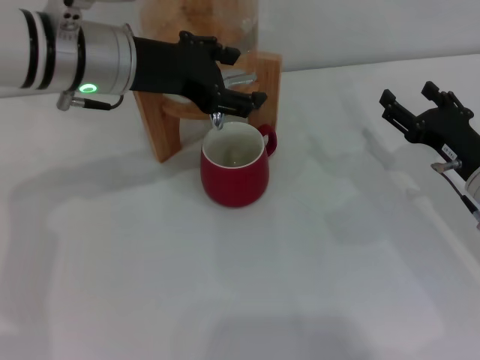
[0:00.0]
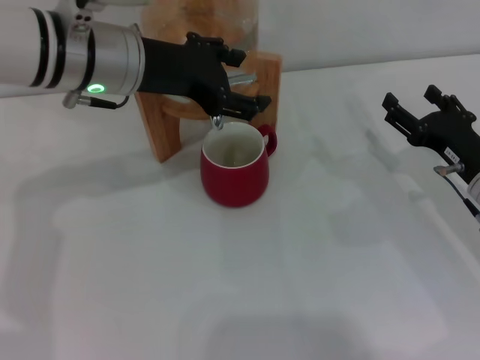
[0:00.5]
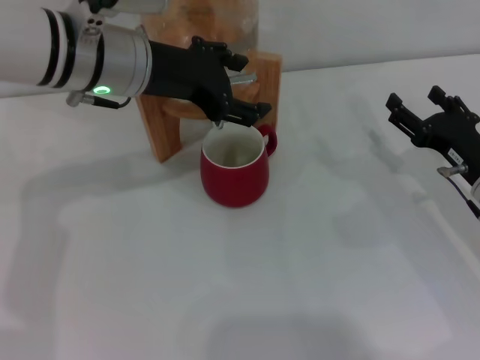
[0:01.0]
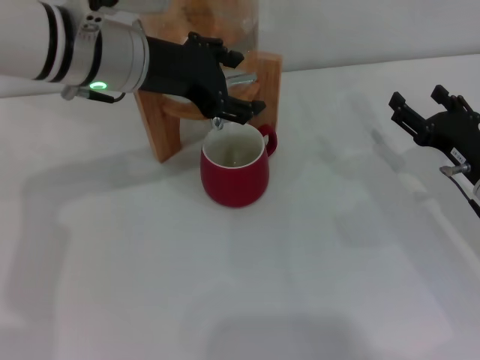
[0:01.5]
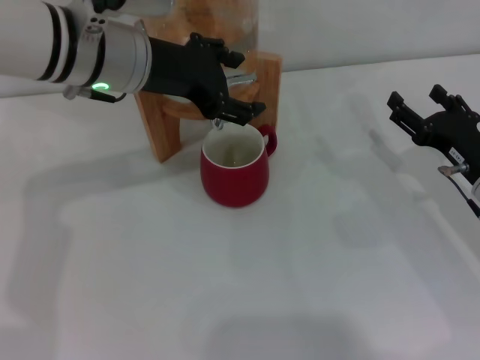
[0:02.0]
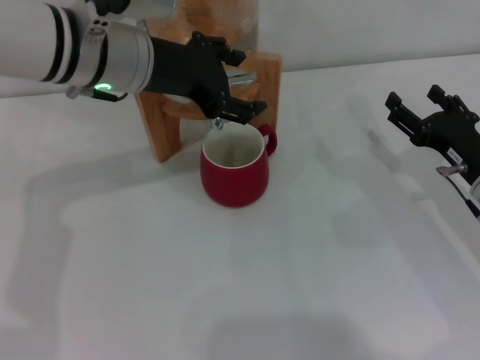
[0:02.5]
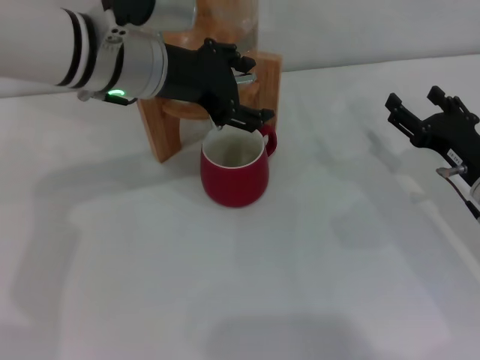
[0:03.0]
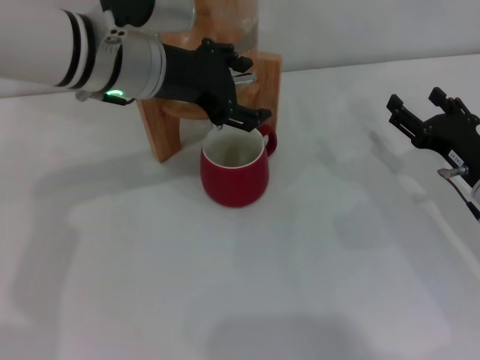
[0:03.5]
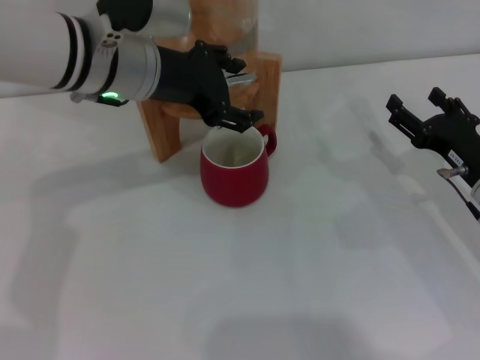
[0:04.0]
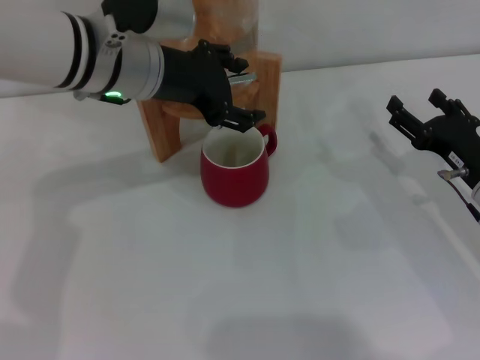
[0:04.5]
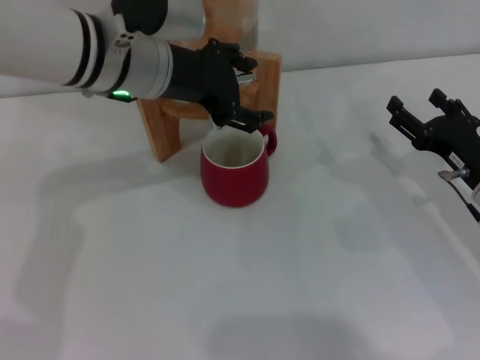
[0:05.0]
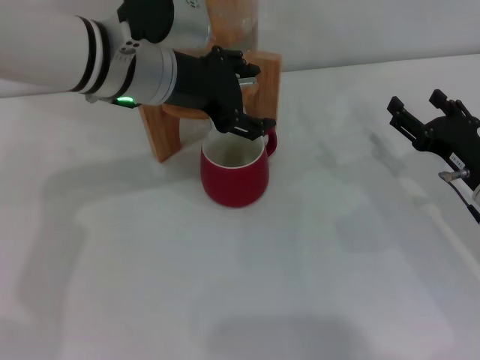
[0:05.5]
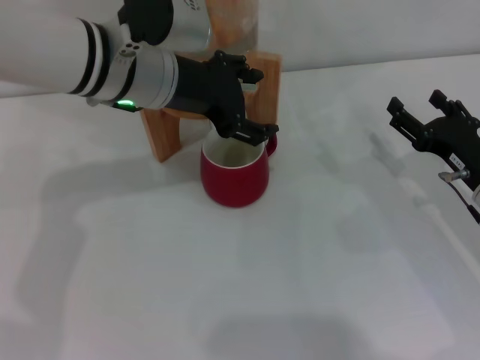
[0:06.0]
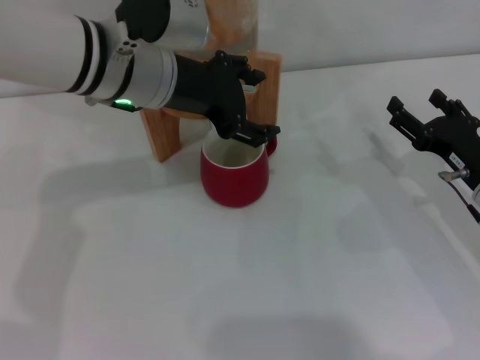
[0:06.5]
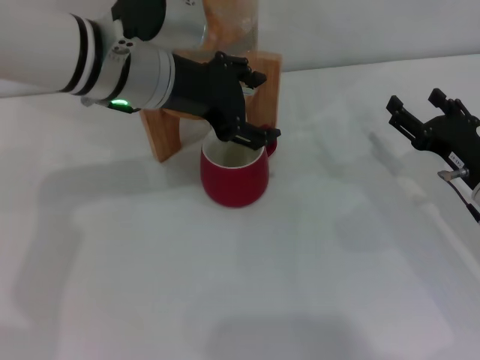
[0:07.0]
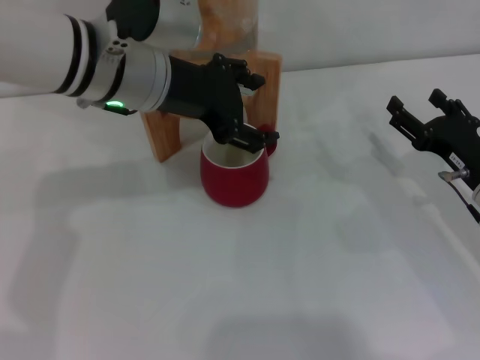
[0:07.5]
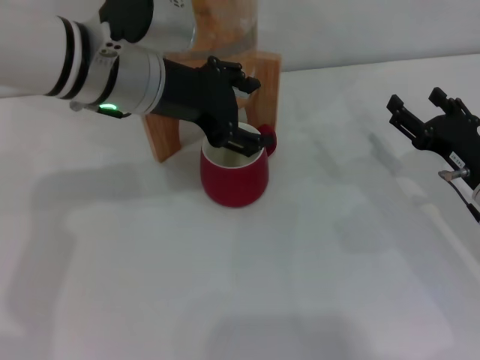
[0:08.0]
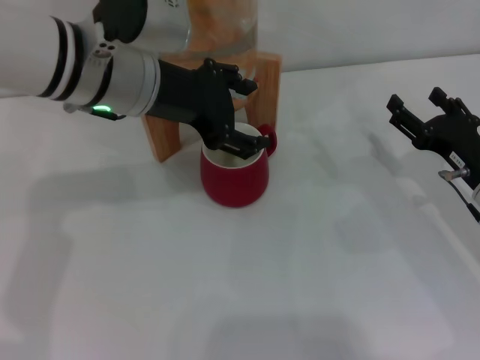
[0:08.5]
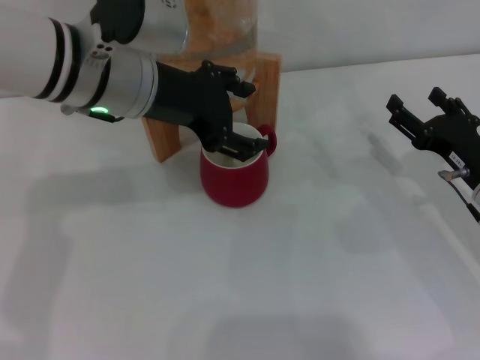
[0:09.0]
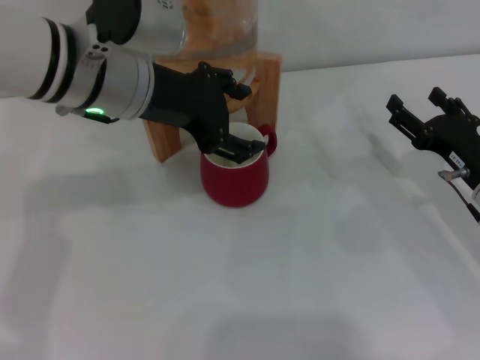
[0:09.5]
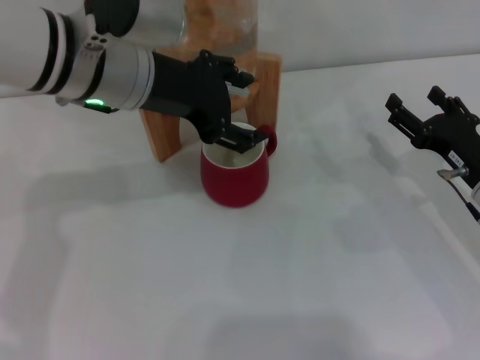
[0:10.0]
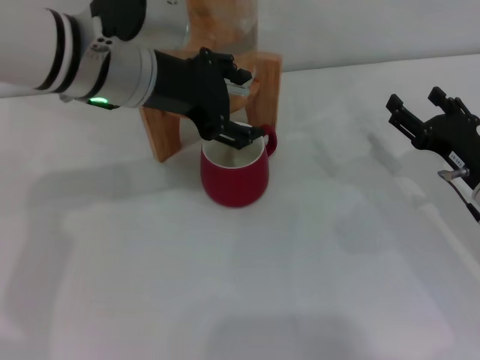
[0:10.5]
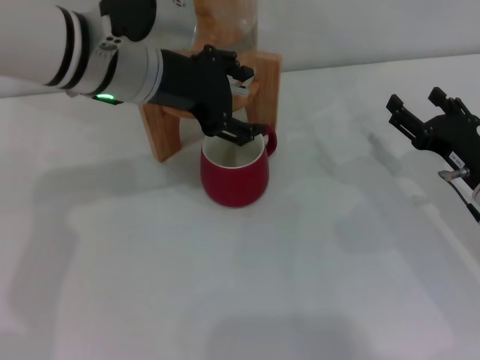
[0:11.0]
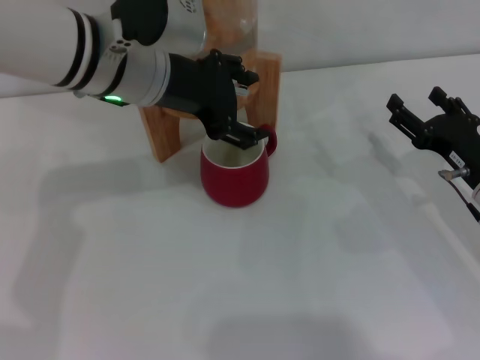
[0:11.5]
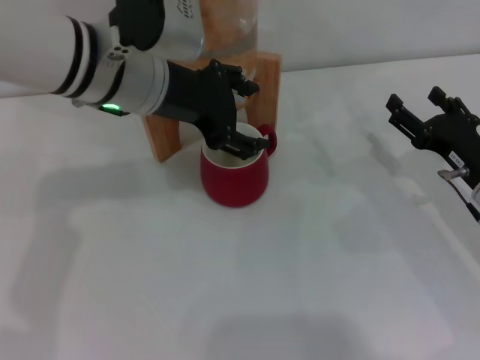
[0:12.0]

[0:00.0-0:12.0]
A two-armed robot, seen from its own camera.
Task of the whole recording: the right gripper pick up the red cup and place it horizontally under the faucet, the left gripper turn on the faucet to fill the cup, and then turn off the faucet.
0:00.0 to 0:02.0: The grippers move only a little.
0:02.0 to 0:04.0: The two grippers keep their place.
0:04.0 to 0:12.0: The grippers make only small movements.

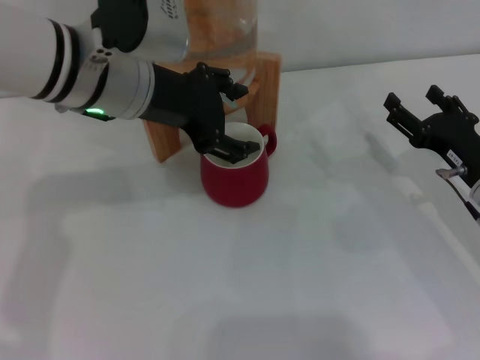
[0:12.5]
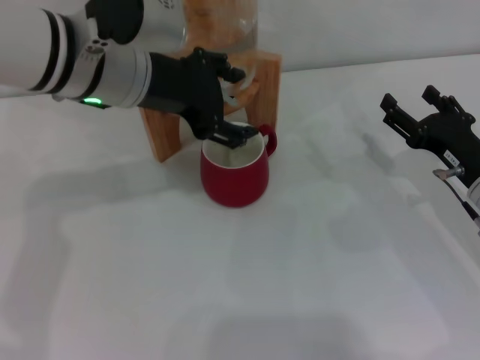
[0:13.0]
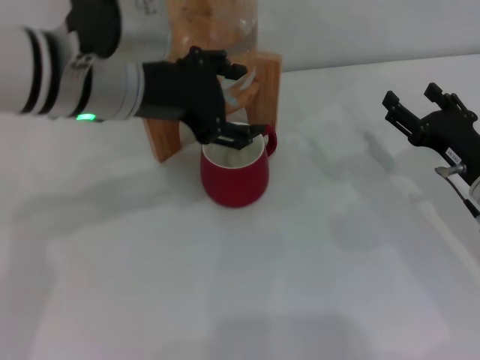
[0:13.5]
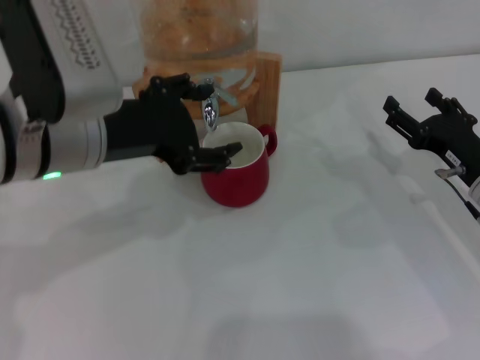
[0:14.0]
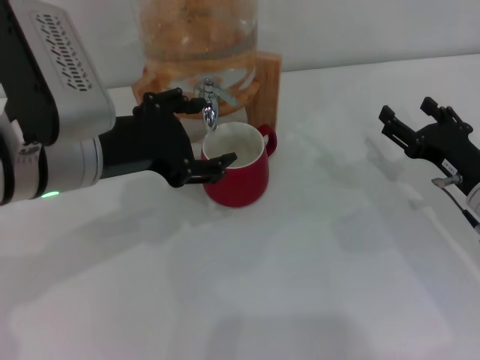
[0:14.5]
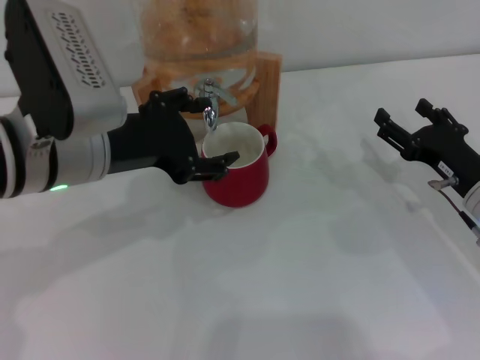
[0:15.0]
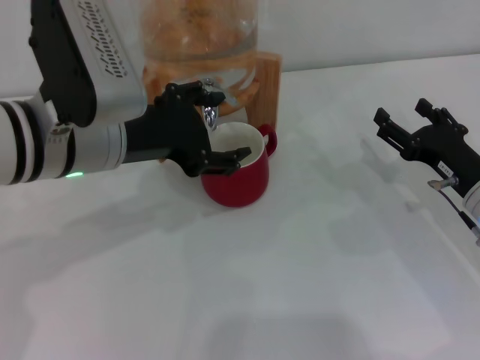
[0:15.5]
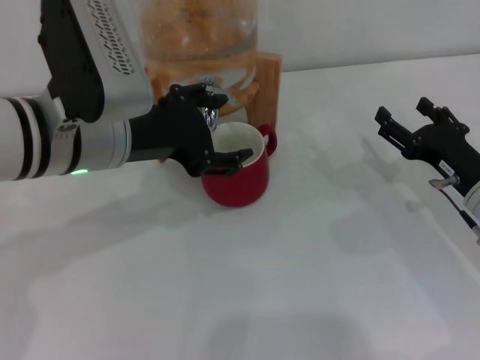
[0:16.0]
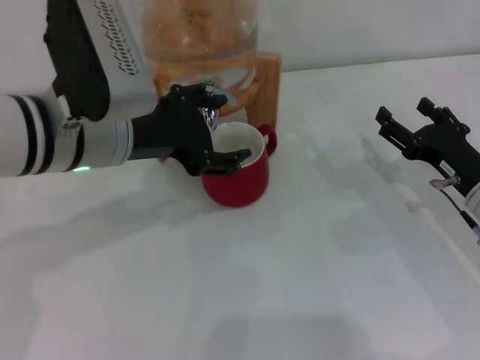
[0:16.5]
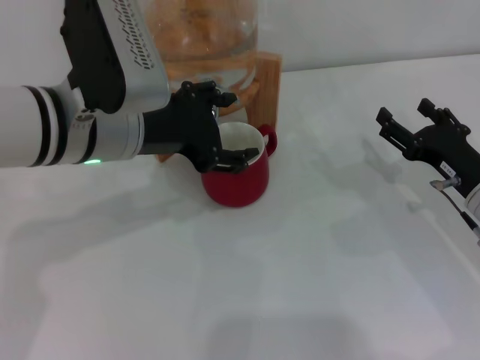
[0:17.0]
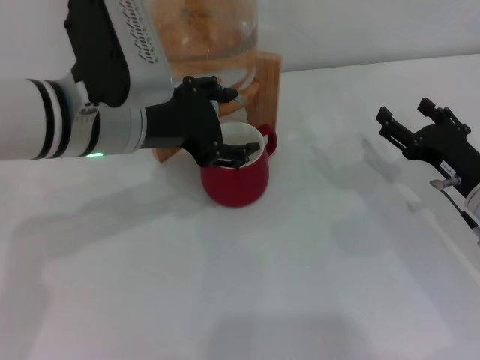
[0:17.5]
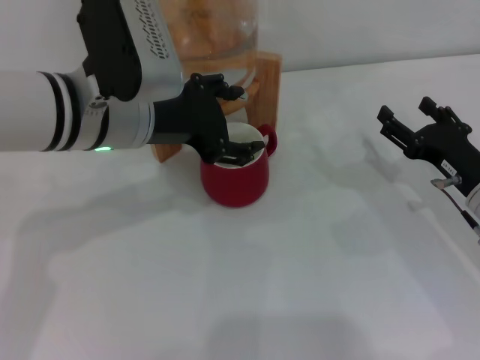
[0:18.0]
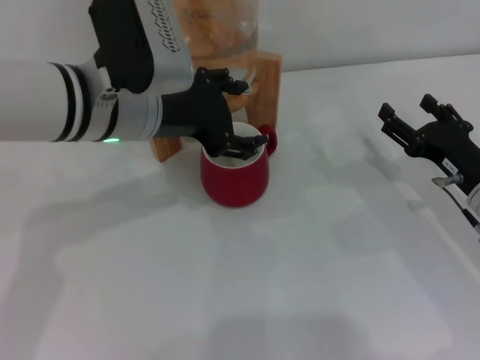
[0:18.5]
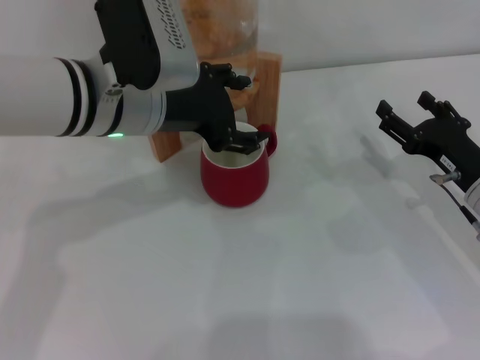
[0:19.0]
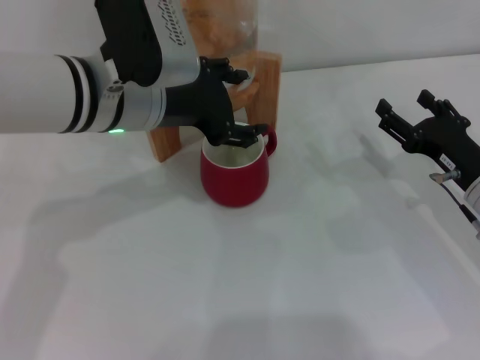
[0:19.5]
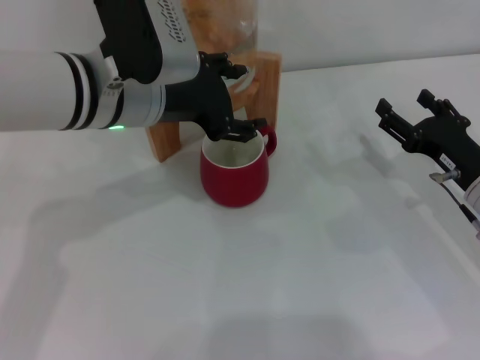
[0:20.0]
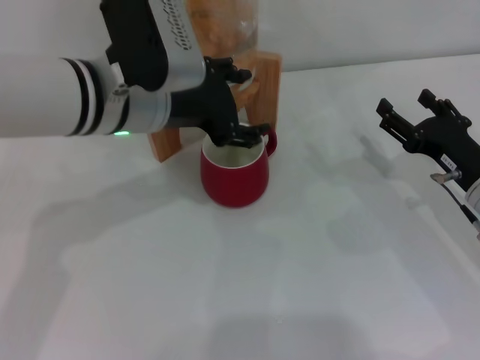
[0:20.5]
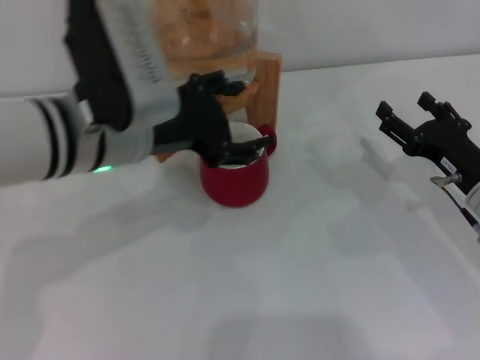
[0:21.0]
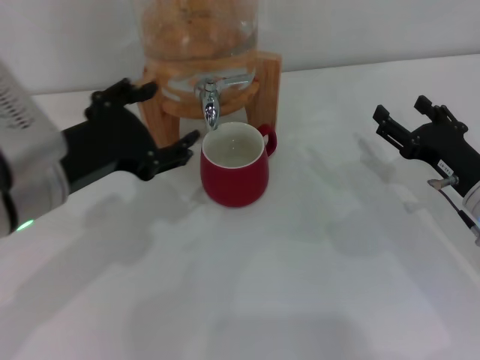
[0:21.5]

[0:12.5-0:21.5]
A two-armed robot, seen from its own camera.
Task of the whole recording: the right gripper pick up the red cup and place it horizontally under the faucet, the left gripper turn on the faucet to fill the cup, and then turn off the faucet.
Step, 0:13.5 to 0:20.5: Close the dispenser valve with the left gripper.
0:12.5 to 0:14.5: The left gripper is displaced backward by some 5 cm.
0:14.5 to 0:17.0: The grippers move only a little.
0:17.0 to 0:19.5: There are only small adjustments of the grippers.
0:19.5 to 0:21.5: The left gripper goes about 10 cm backward and to the left.

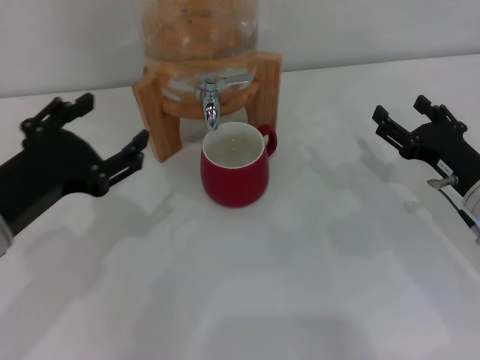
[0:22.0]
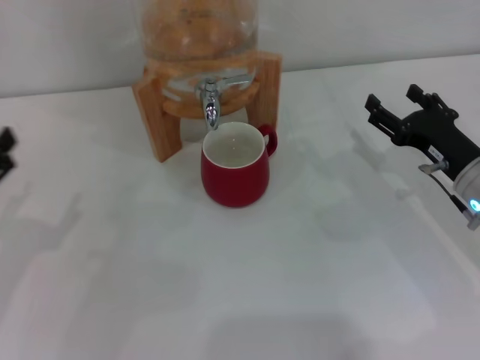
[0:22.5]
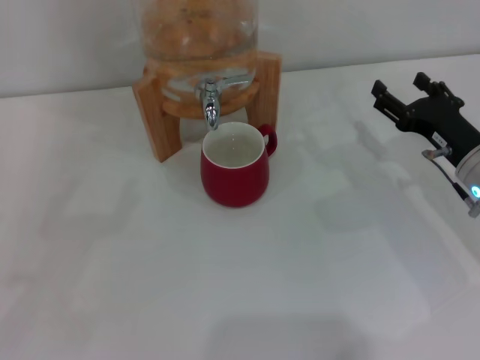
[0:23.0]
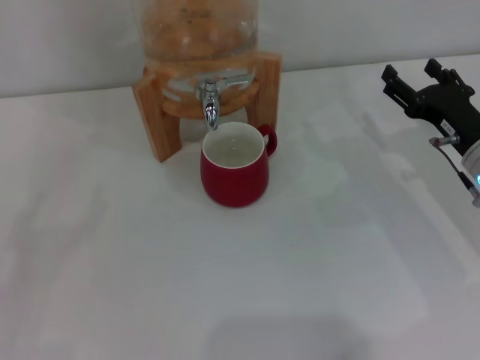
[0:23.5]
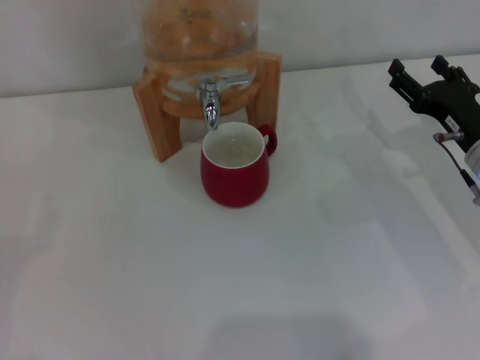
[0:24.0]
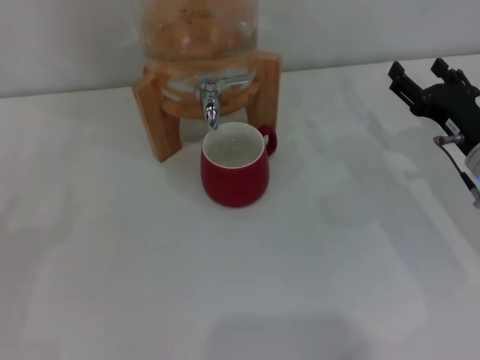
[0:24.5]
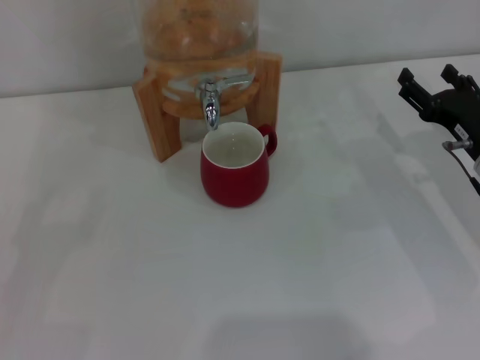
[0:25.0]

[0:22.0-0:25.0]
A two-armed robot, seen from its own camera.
Task of the whole recording: the right gripper pick up the red cup and place it horizontally under the faucet, the left gripper turn on the faucet to fill the cup, and then turn off the faucet.
0:22.0 to 0:23.5: The left gripper heads to the left and downward, covering roughly 15 cm.
0:23.5 to 0:25.0: The grippers stay close to where they were, moving slightly.
